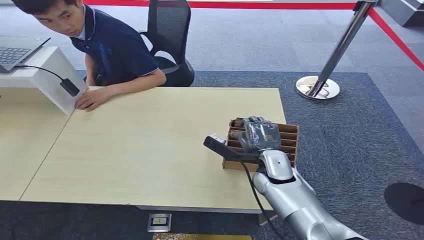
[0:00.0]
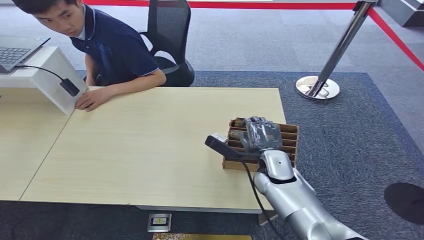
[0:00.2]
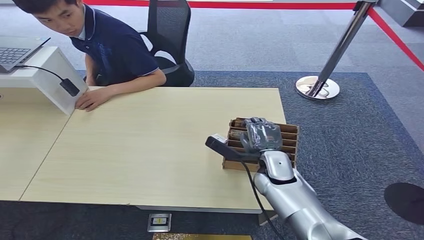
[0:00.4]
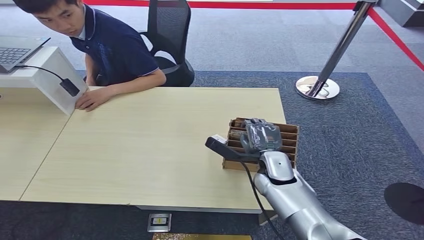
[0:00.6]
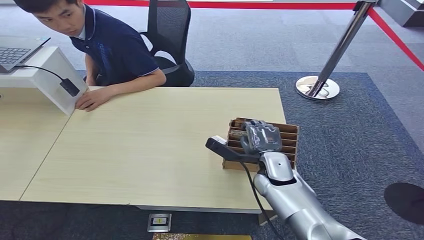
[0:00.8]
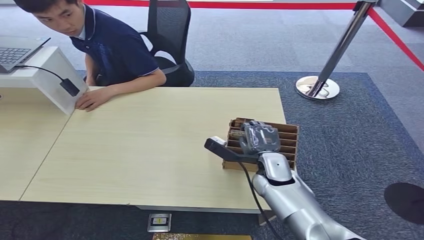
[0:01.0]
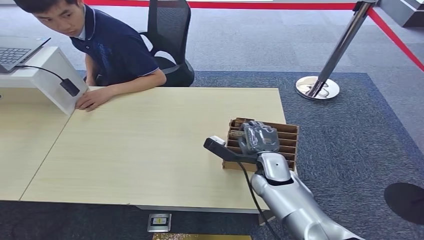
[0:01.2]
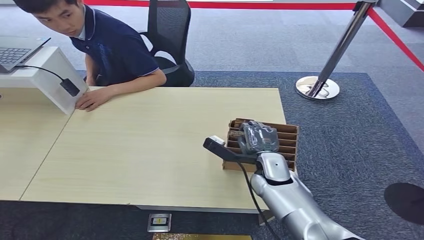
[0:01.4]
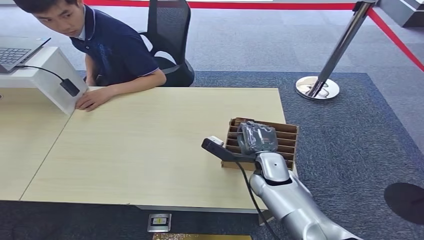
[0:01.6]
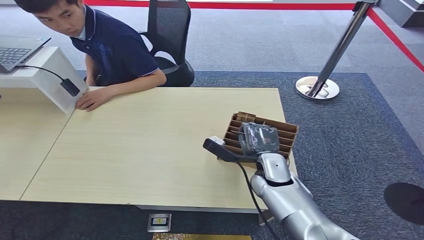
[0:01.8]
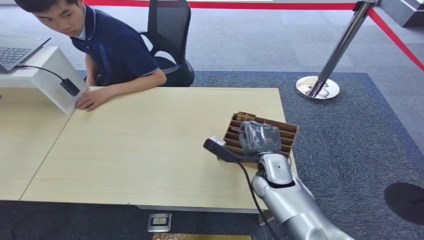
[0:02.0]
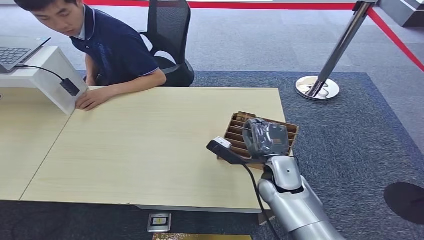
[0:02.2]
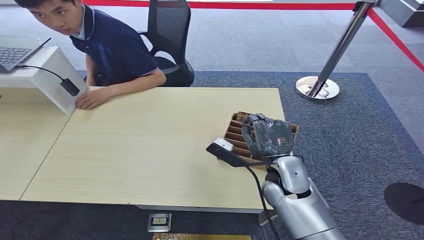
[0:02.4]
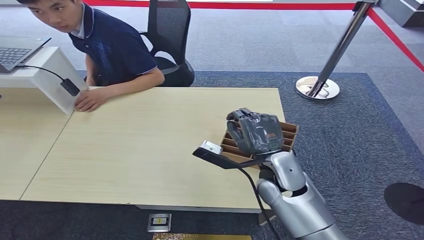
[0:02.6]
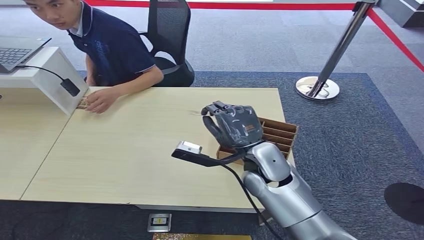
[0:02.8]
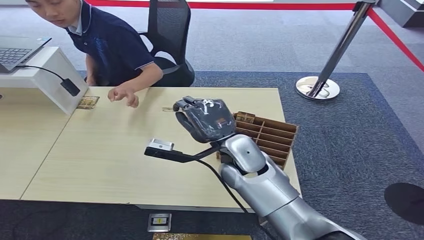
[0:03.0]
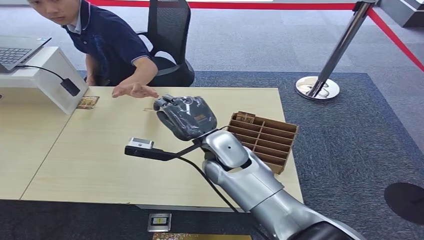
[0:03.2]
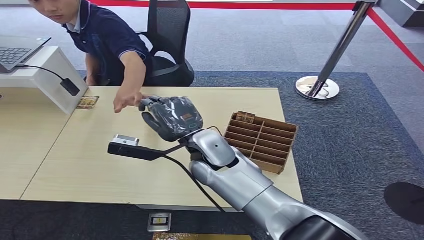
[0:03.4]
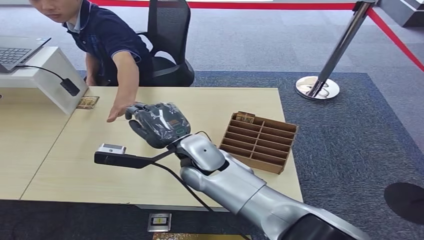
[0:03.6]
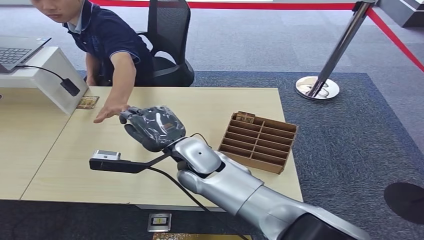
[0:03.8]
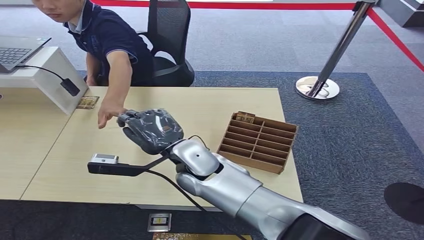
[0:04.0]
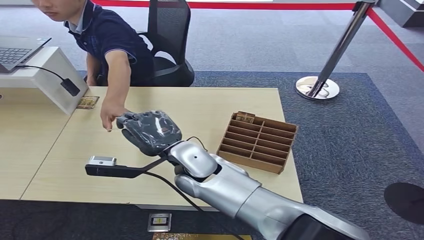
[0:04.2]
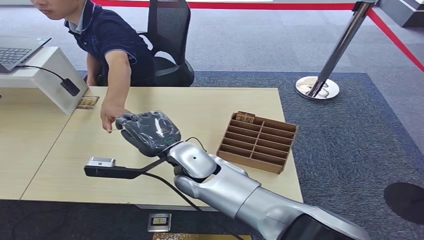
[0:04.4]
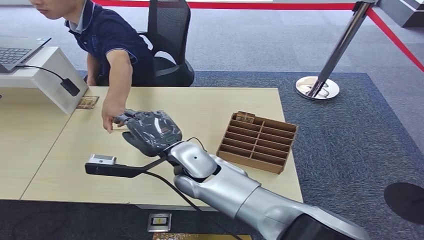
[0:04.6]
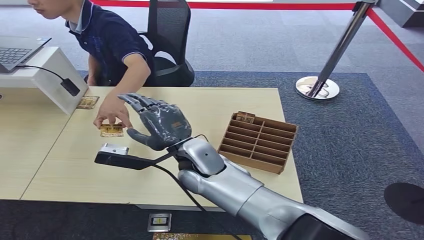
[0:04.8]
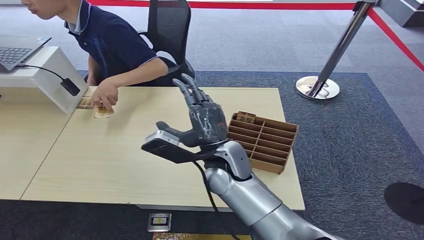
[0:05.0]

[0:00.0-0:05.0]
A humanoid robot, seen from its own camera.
Step, 0:00.0 to 0:02.2: Pick up the key card from the card box.
Step, 0:02.4 to 0:05.0: Hand the key card to the target.
0:01.6 to 0:03.4: The right hand shifts roughly 20 cm to the left and upward.
